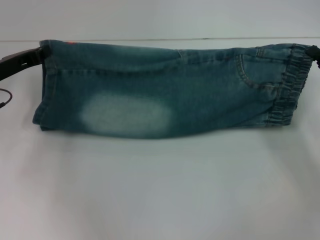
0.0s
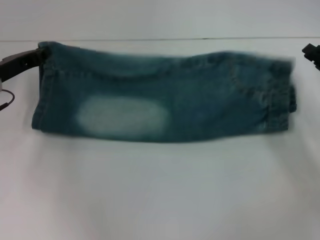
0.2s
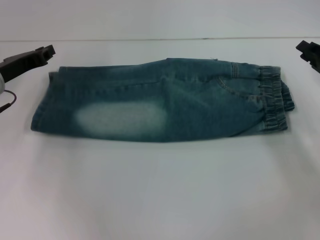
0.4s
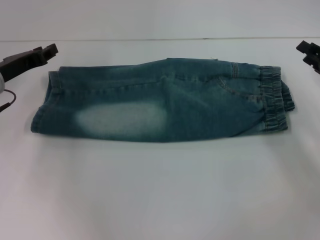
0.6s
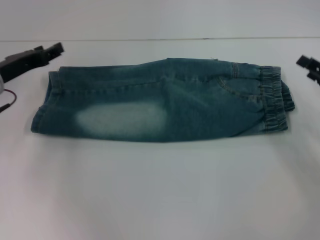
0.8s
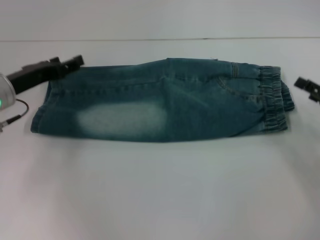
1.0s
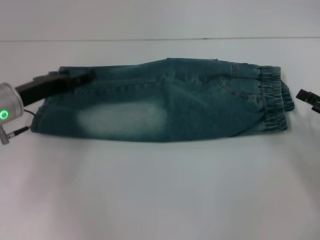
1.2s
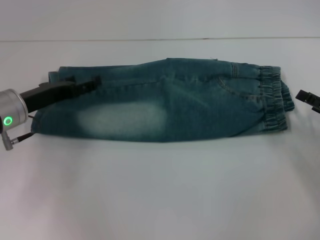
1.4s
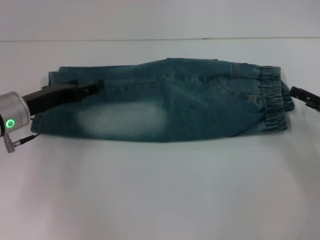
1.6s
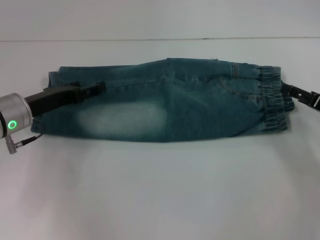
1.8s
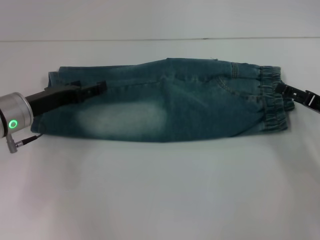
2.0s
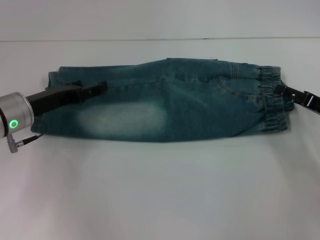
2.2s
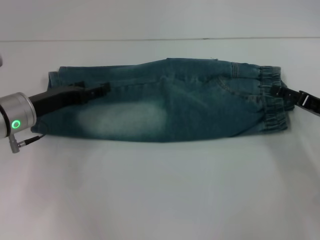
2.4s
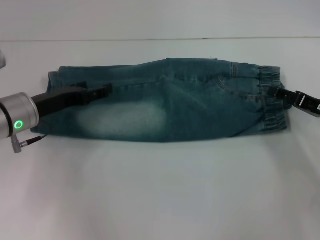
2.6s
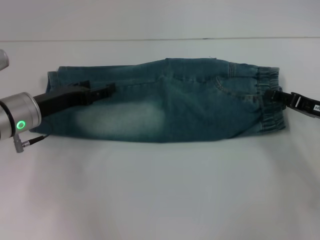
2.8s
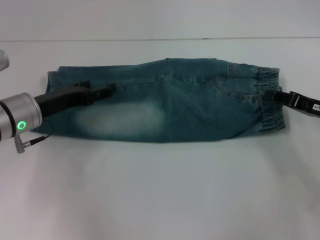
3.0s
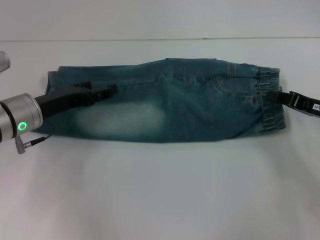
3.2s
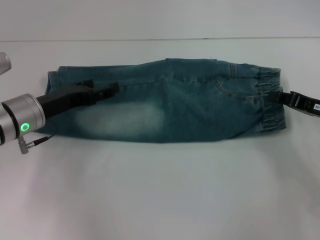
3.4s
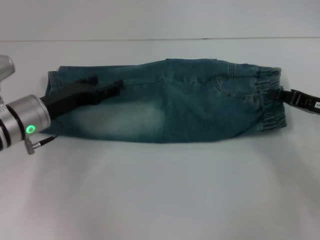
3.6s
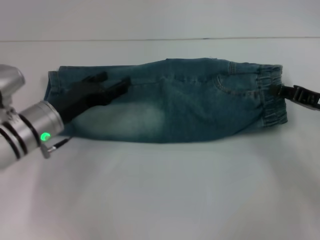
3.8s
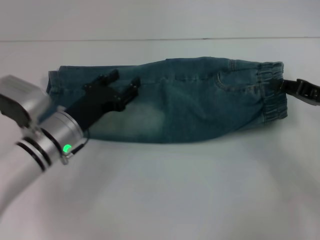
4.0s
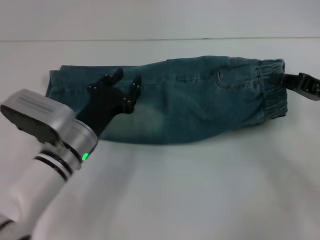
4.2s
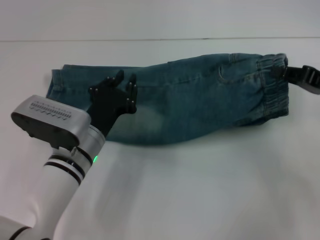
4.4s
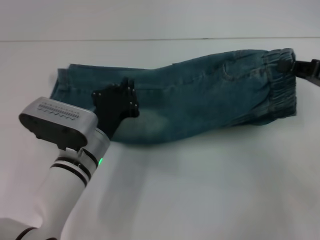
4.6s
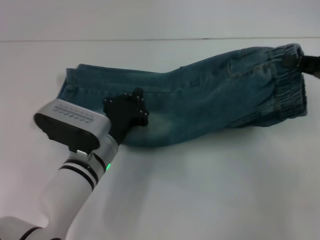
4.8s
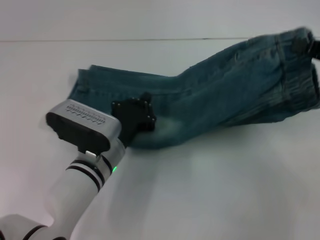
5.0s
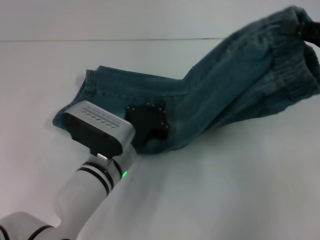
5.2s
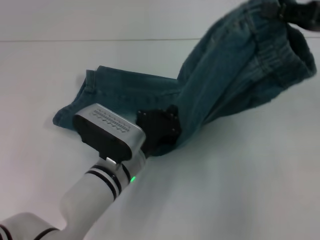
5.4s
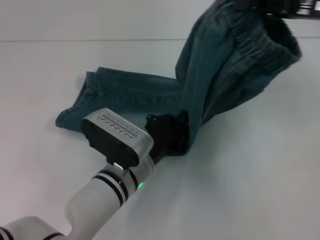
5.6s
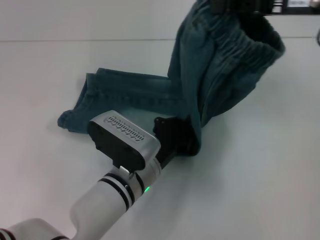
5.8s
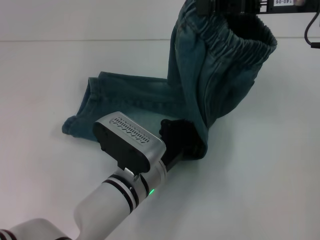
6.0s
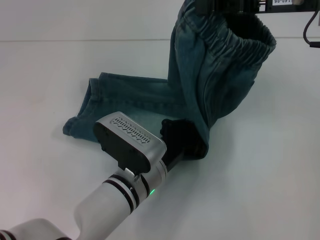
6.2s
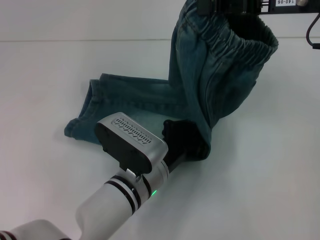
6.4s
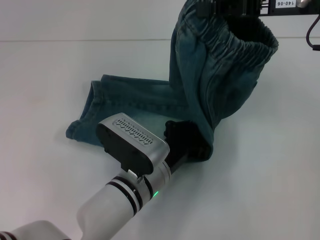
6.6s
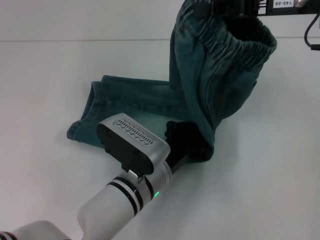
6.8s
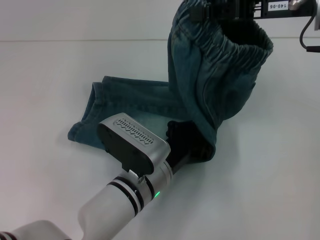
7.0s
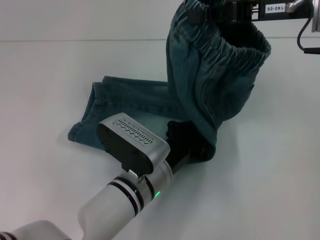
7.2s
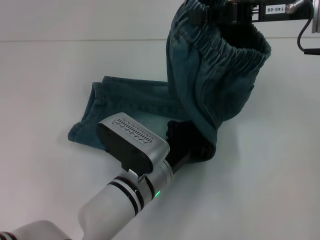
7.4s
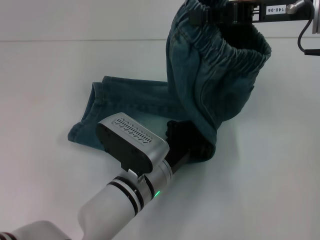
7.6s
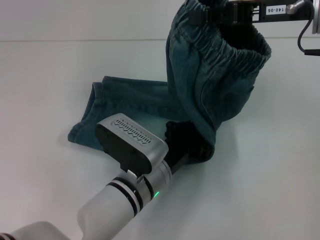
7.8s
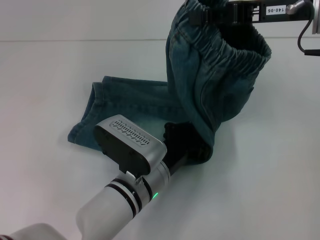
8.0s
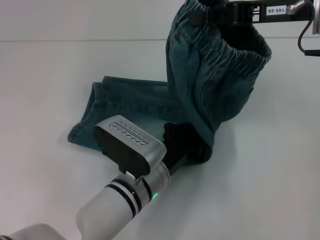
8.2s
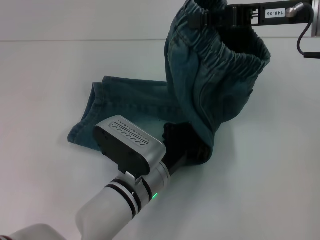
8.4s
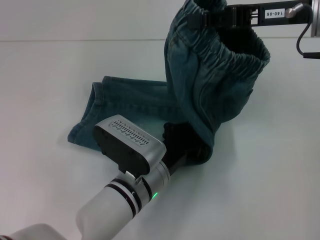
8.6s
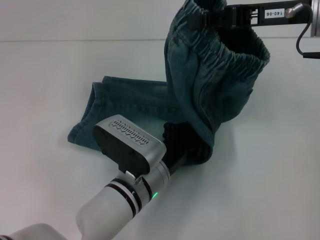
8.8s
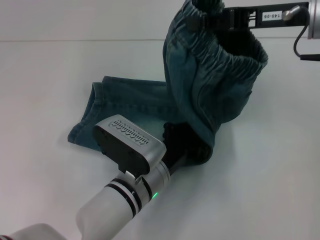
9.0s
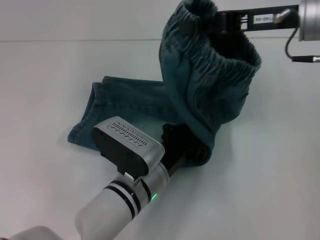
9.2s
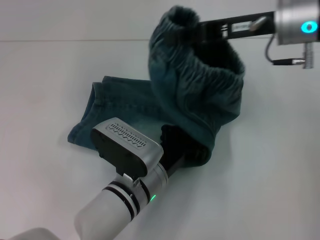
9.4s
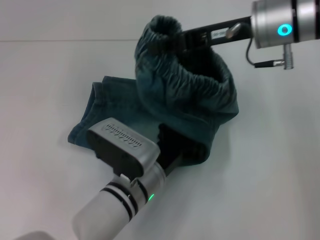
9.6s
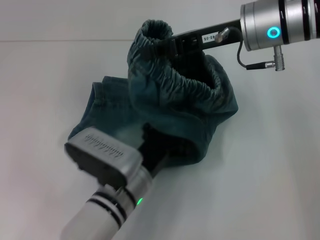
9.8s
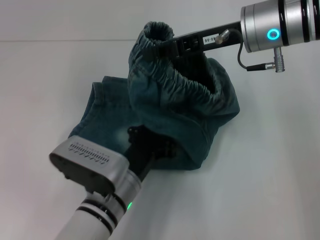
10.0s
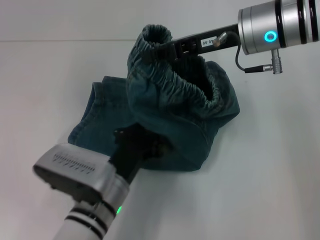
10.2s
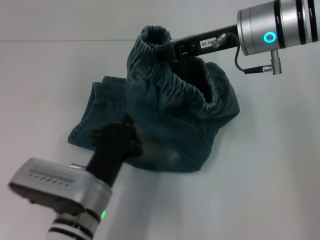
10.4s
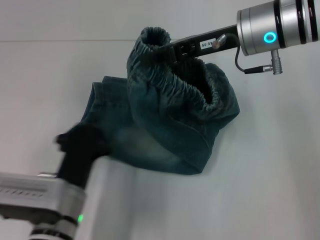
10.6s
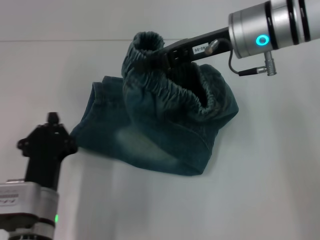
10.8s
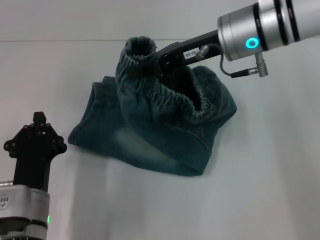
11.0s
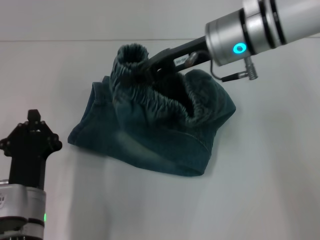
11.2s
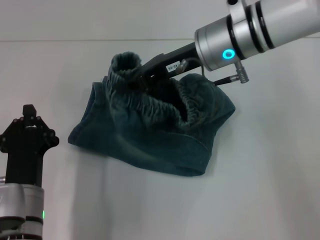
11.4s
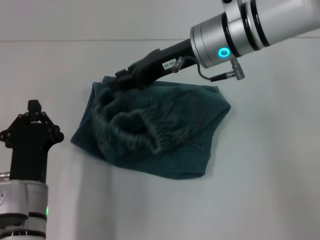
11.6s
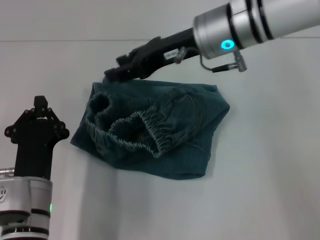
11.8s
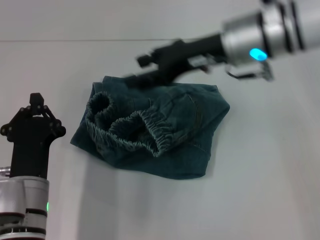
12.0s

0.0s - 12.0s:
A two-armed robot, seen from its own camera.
Step, 1.4s - 2.4s: Grab the waistband with your right hand.
Step, 2.6s - 9.6s: Press the middle of the pants with your left hand.
0.0s - 1.6s: The left gripper ends up some 5 cm from where it was, and opens up. Meanwhile the right gripper opens up.
1.6s - 3.0s: The right gripper closes its fingers.
3.0s - 4.4s: The right gripper moves upward, roughly 5 cm, and closes its fingers; the left gripper moves to the right, some 10 cm, and closes up.
4.4s - 6.0s: The right gripper moves upward, to the left and forward, approximately 15 cm. Meanwhile the left gripper heads to the right, covering about 10 cm, and closes.
6.0s - 7.6s: The two grippers keep their place.
7.6s - 9.0s: Both grippers stay about where they are.
9.0s - 10.4s: The grippers both shift to the left by about 5 cm.
10.4s - 12.0s: The left gripper moves to the left, about 5 cm, while the right gripper opens its fingers.

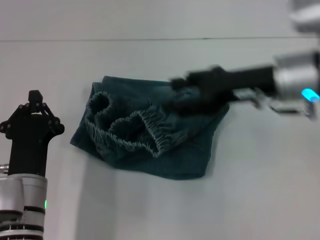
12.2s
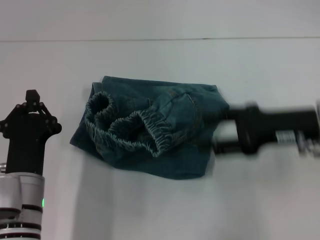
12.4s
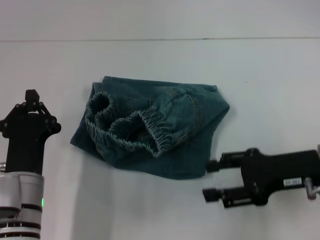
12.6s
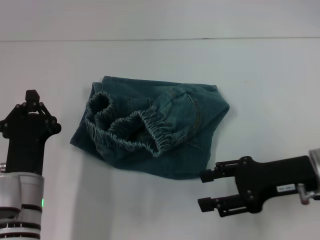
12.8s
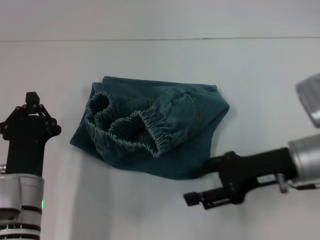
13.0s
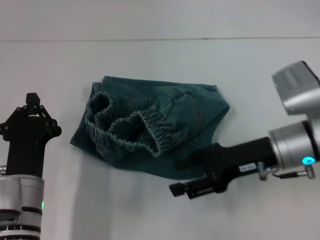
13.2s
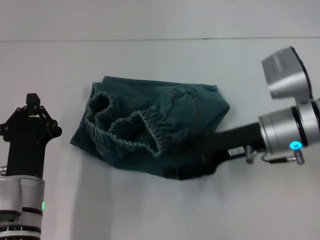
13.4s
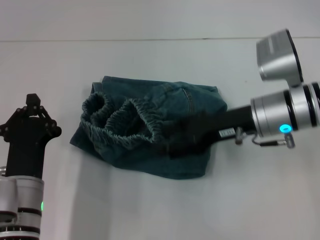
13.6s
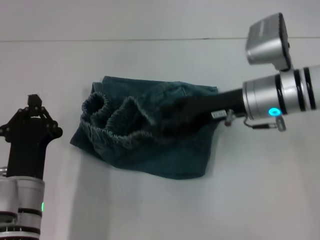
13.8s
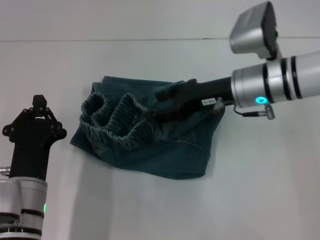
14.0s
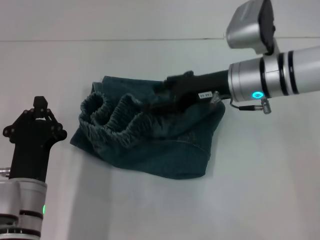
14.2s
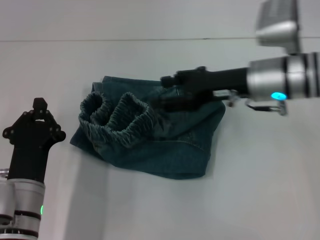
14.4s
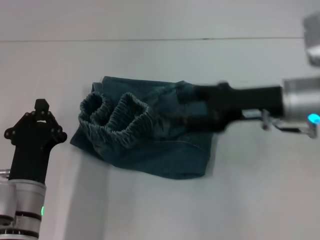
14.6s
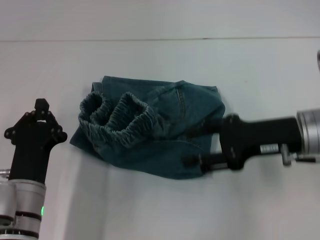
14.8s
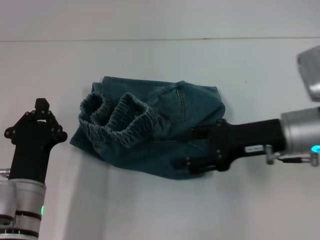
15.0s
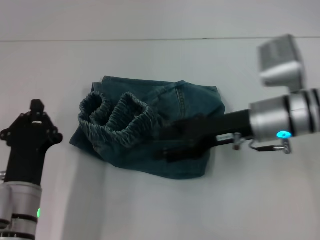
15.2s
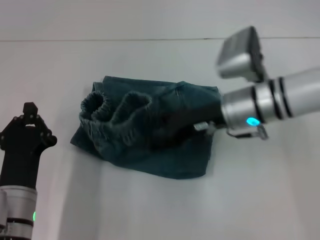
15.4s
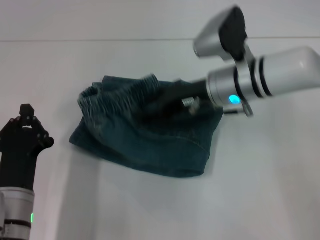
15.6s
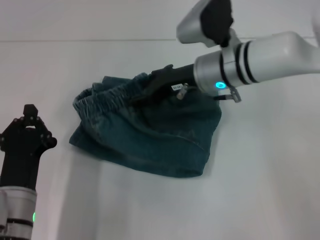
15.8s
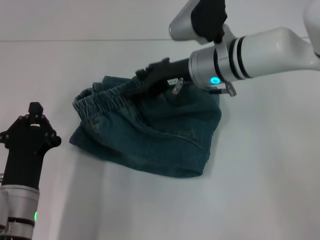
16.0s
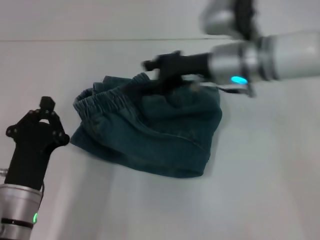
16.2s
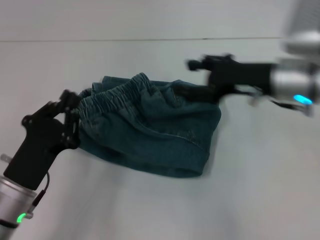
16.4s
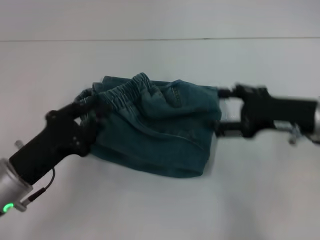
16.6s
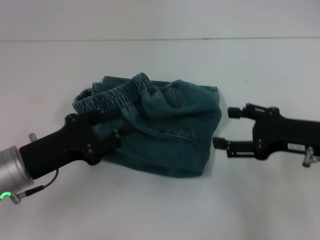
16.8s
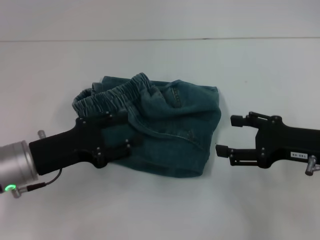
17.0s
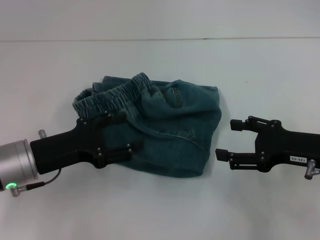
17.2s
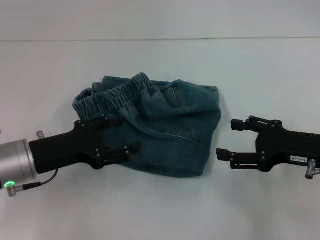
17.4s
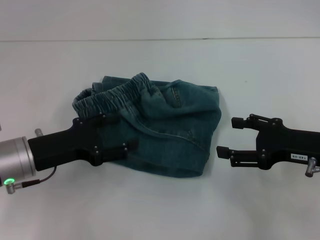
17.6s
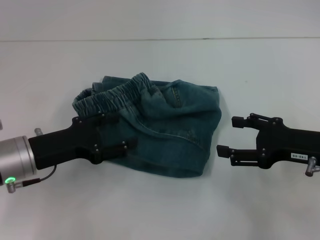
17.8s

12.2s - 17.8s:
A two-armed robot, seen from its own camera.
Step, 12.2s - 16.4s: Fold to the left with your right hand.
12.2s - 13.6s: The right gripper heads downward, covering some 5 cm, and moves some 10 cm backward and comes back.
13.6s - 15.0s: The grippers move only a little.
15.0s - 16.4s: The right gripper reaches about 10 cm to the left, then returns.
16.4s - 17.8s: The right gripper moves backward, to the right and downward, some 10 cm. The left gripper travels forward by approximately 5 cm, and opens.
